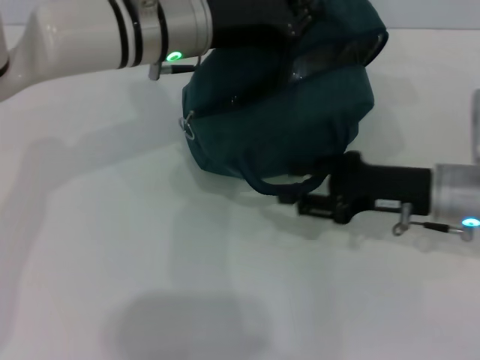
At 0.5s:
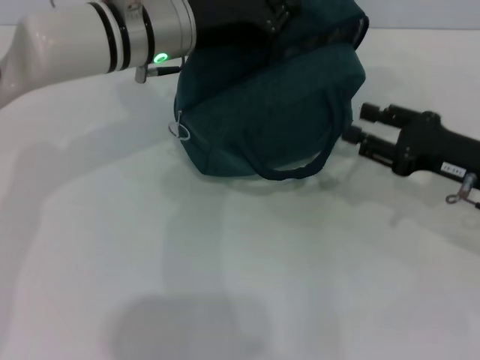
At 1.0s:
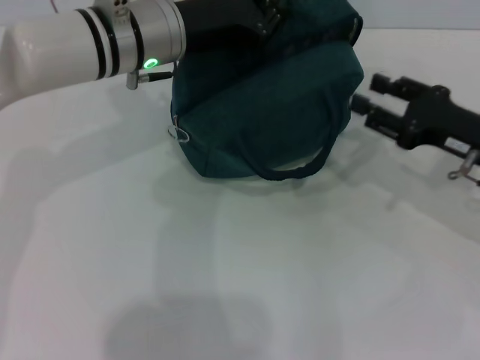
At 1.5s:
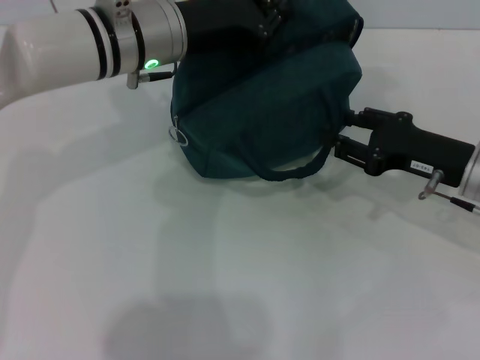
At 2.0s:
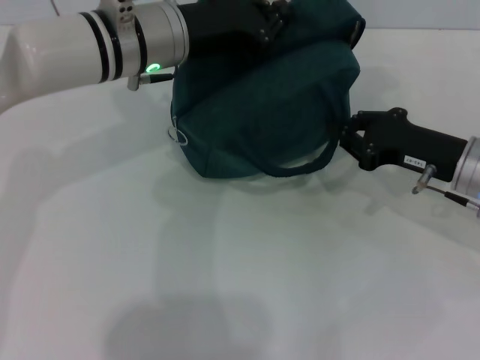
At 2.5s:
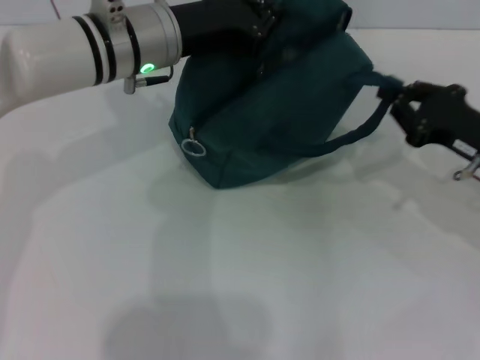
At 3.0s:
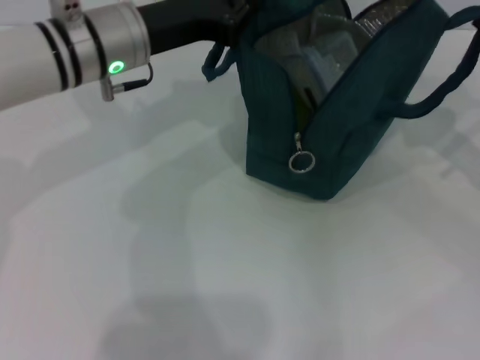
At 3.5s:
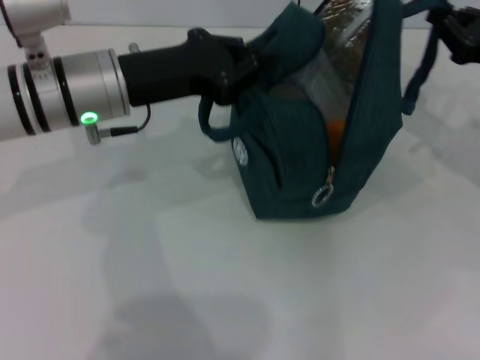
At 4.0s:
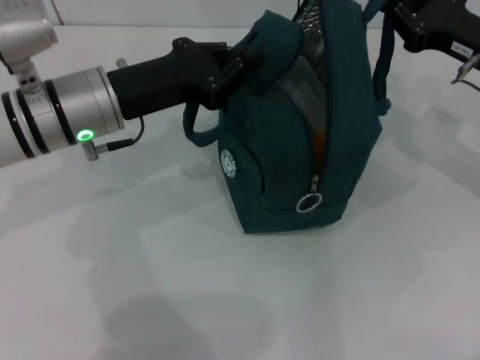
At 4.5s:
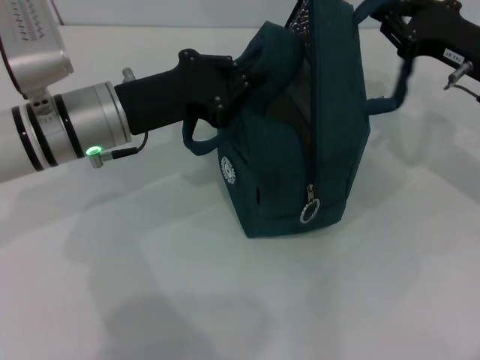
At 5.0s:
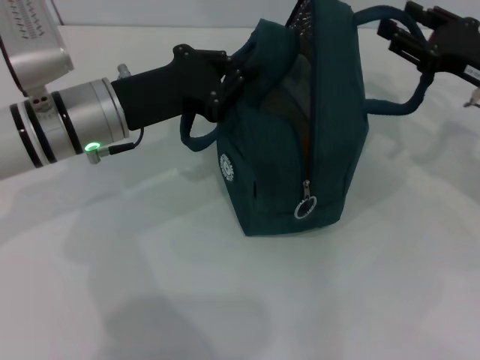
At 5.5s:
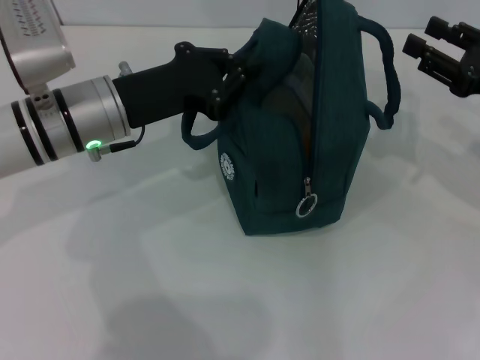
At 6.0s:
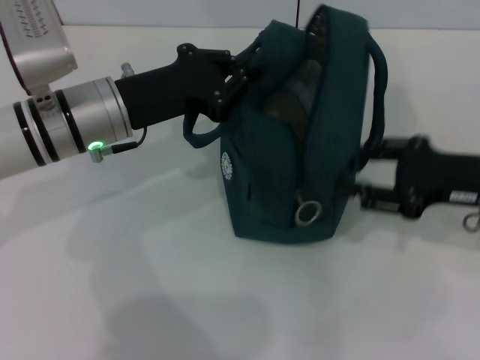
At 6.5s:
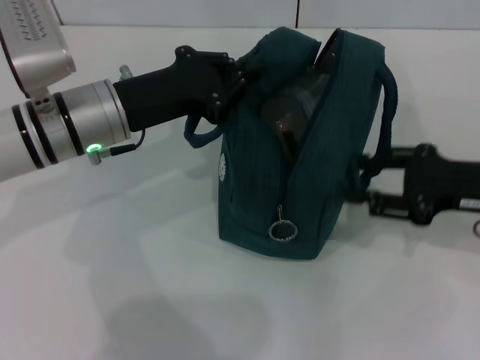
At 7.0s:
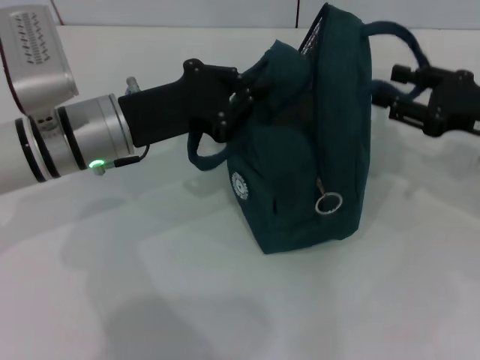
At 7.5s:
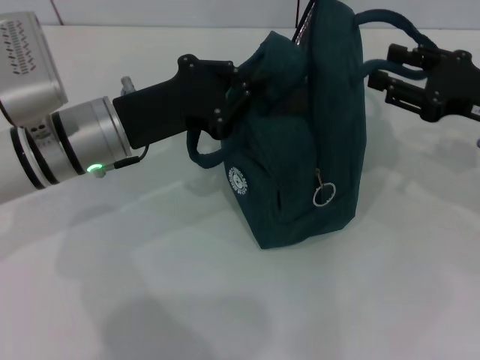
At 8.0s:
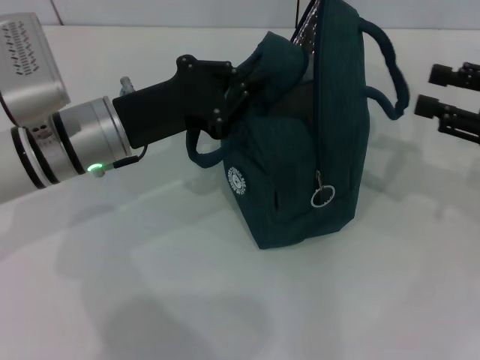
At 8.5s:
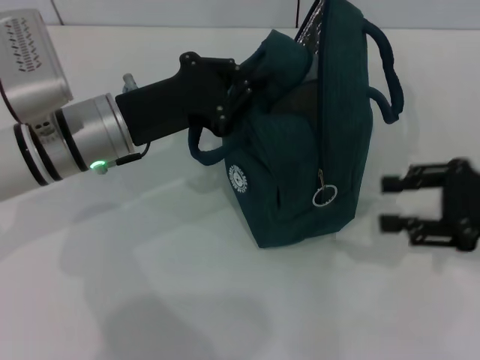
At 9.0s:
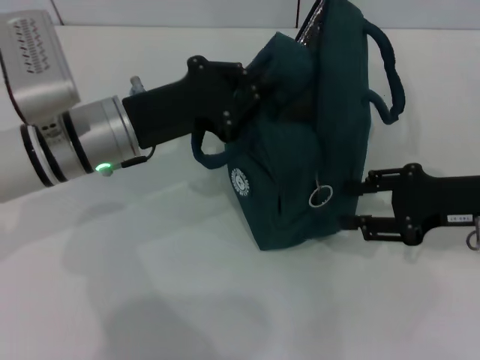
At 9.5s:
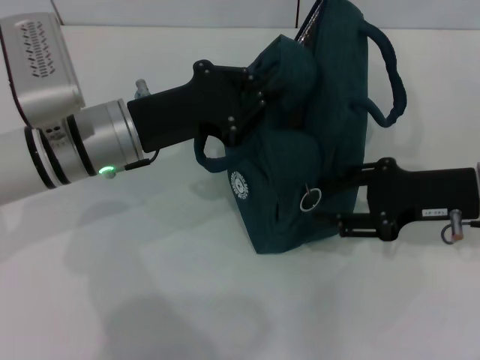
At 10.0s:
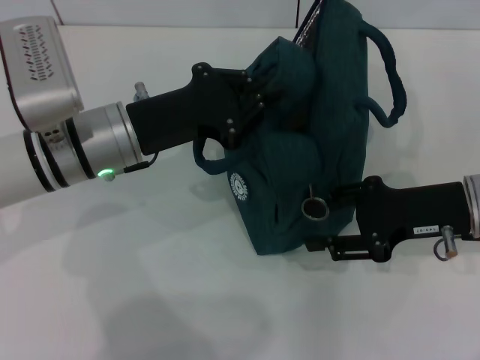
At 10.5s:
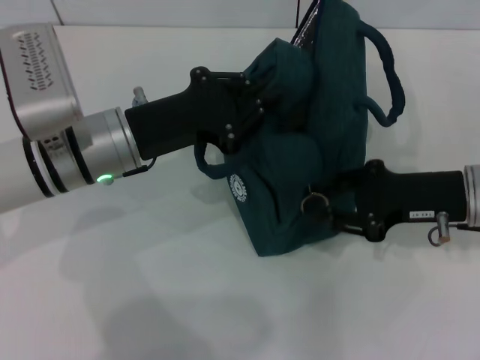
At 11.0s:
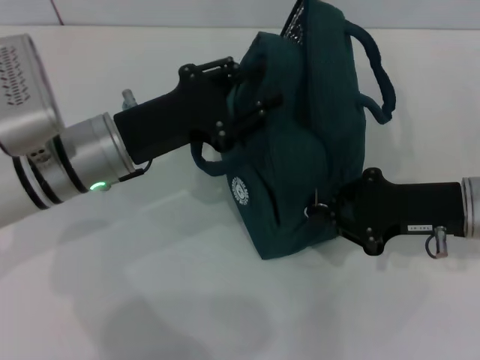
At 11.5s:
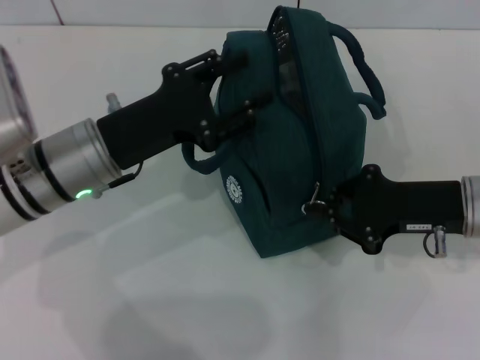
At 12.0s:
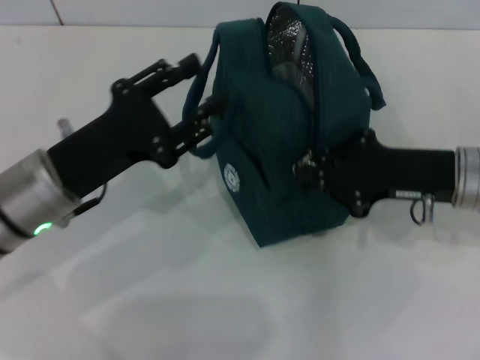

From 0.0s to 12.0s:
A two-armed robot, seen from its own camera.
Step, from 0.0s to 5.0s: Hold the lunch bag with your right hand.
Step, from 5.5s to 11.5s: Hold the lunch bag with your left hand.
From 2.0s to 4.0s: The right gripper goes roughly 10 cm upward and forward, and goes to the right and returns, about 10 cm each way, while the left gripper heads to the left and backward, covering approximately 10 cm.
From 4.0s to 6.0s: The right gripper travels backward by about 10 cm, and opens.
From 6.0s to 8.0s: The right gripper is displaced to the right by some 5 cm.
From 8.0s to 10.0s: The right gripper is displaced to the left by some 10 cm.
From 10.0s to 12.0s: The left gripper heads backward, covering roughly 5 cm, and opens up, while the right gripper closes.

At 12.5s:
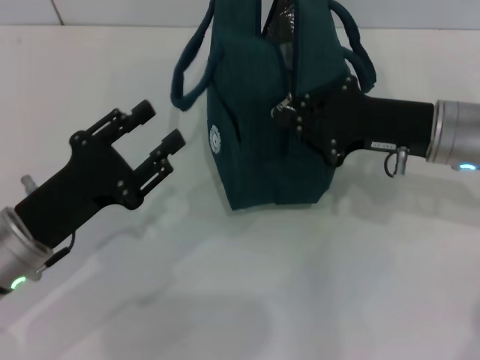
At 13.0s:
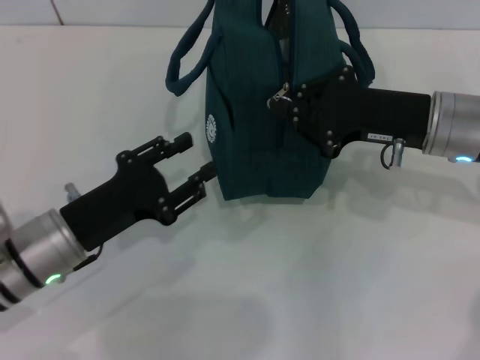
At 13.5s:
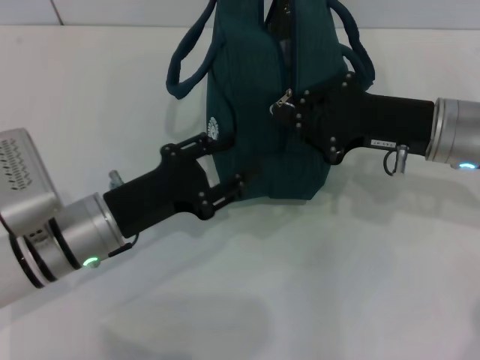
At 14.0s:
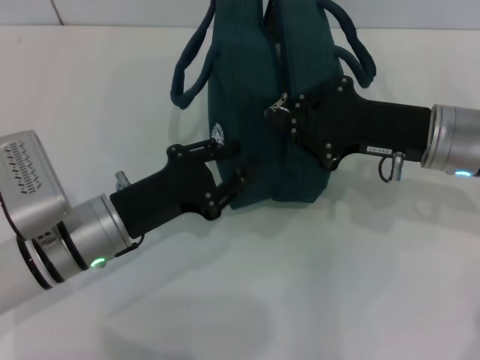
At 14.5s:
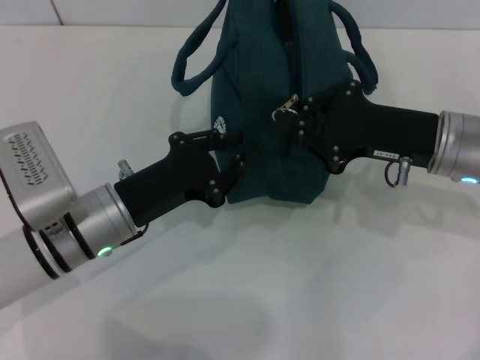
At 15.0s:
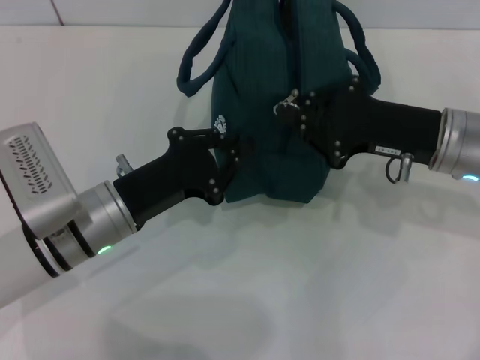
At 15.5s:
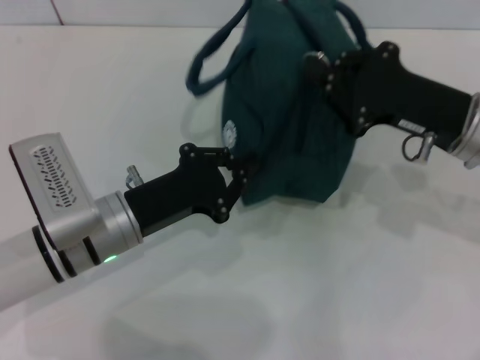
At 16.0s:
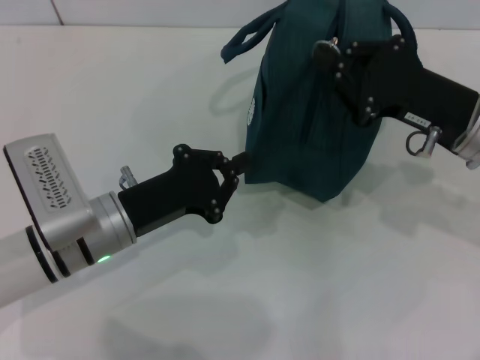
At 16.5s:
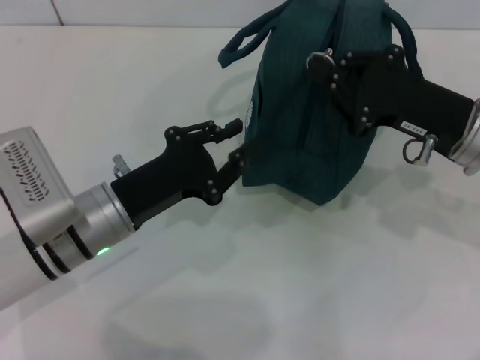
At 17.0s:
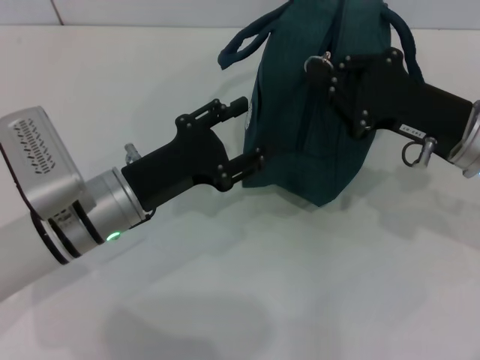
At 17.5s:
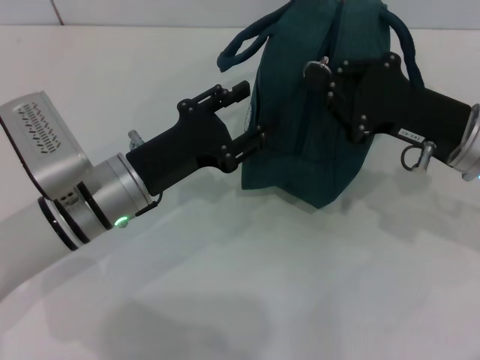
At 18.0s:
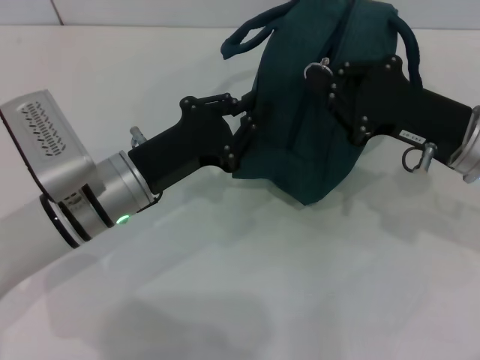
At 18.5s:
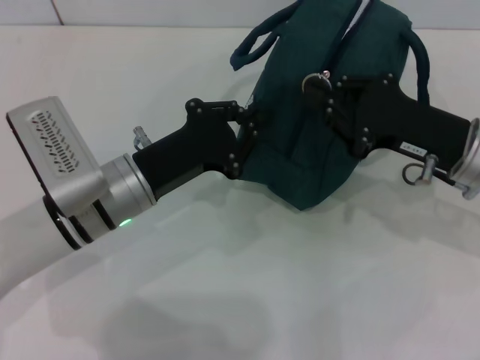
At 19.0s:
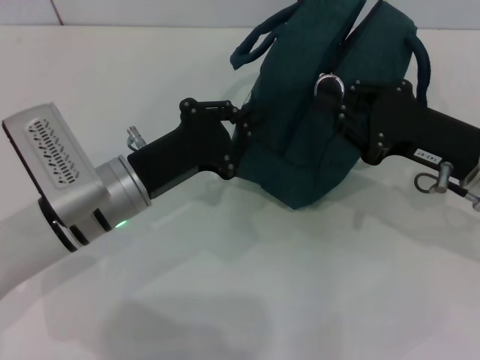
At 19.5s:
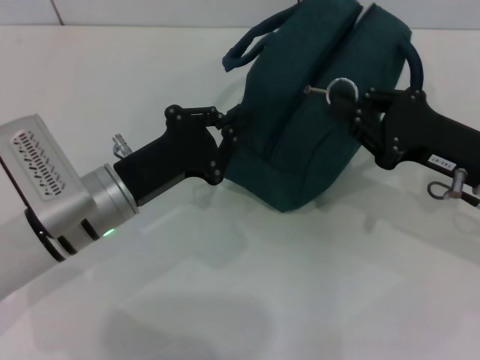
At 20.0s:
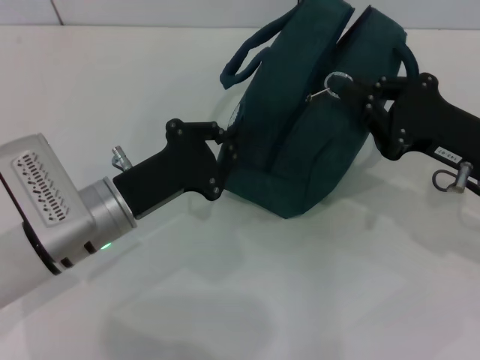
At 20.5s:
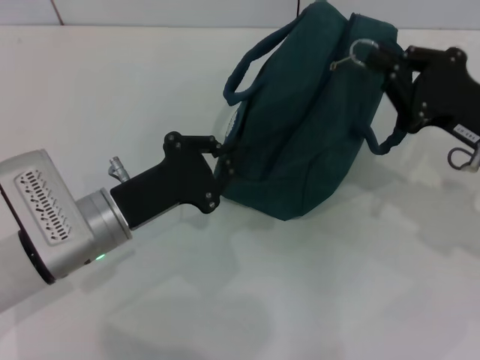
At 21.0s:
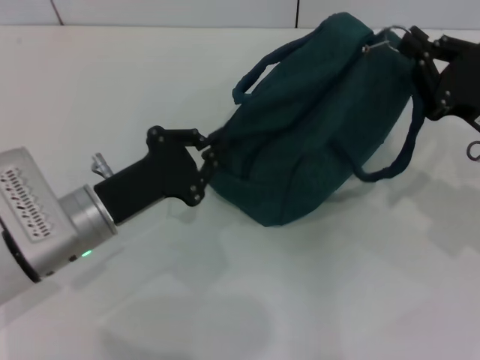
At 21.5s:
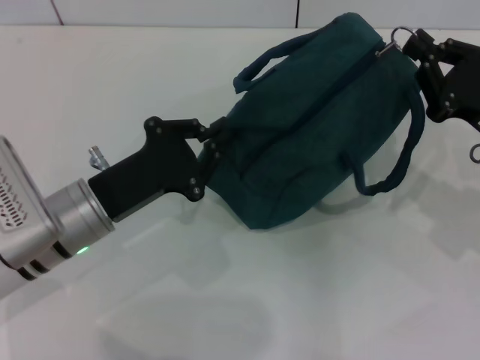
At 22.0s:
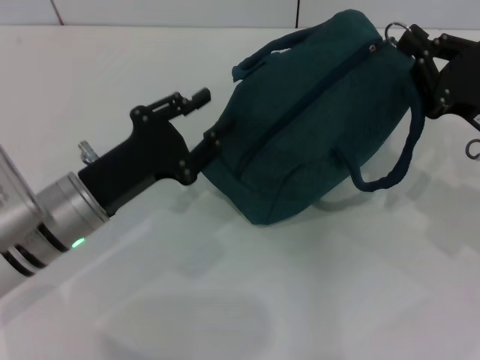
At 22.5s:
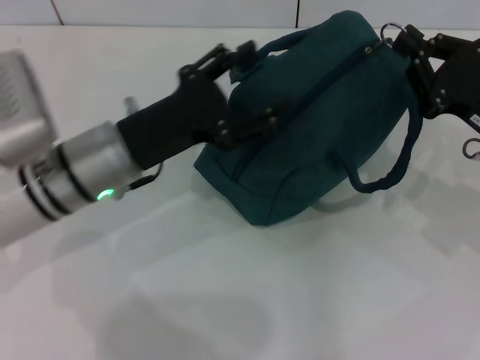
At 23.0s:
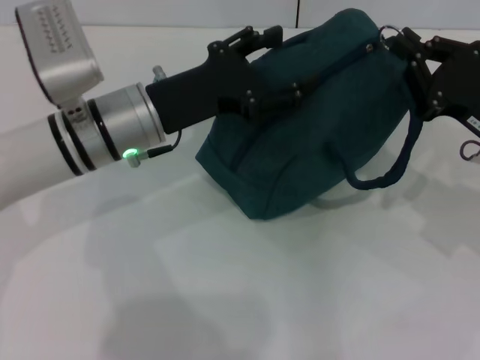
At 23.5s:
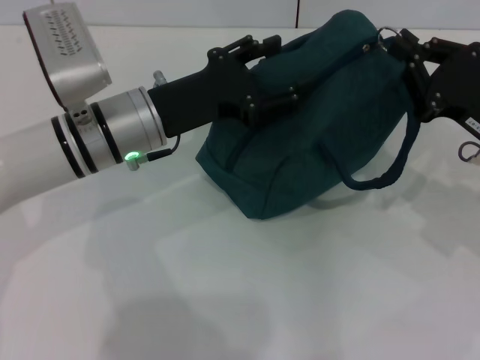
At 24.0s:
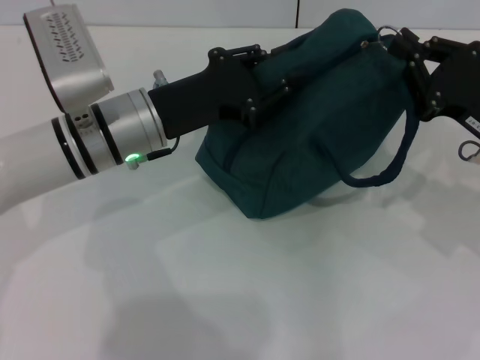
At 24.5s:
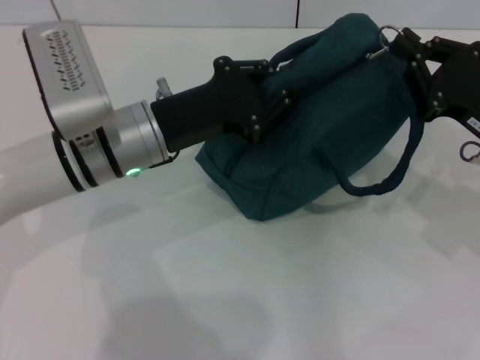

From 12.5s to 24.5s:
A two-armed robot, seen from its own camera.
From 12.5s to 14.5s: The left gripper travels to the right by some 5 cm, and closes.
From 14.5s to 16.5s: The grippers stay close to where they were, moving slightly.
From 16.5s to 18.5s: The left gripper opens and closes again.
From 20.5s to 22.5s: The left gripper is displaced upward by roughly 5 cm, and opens.
From 22.5s to 24.5s: The left gripper closes.

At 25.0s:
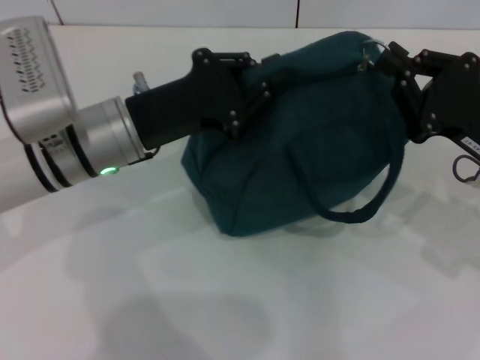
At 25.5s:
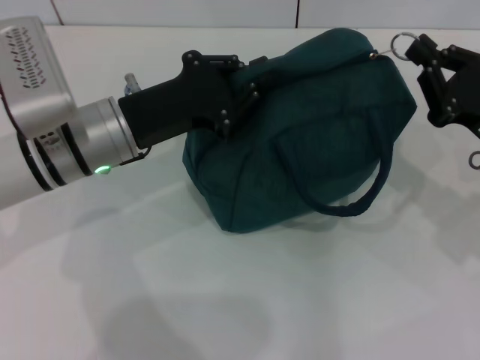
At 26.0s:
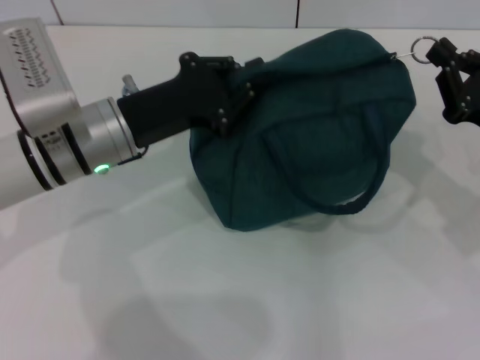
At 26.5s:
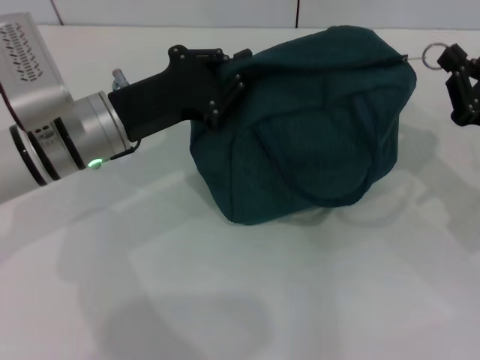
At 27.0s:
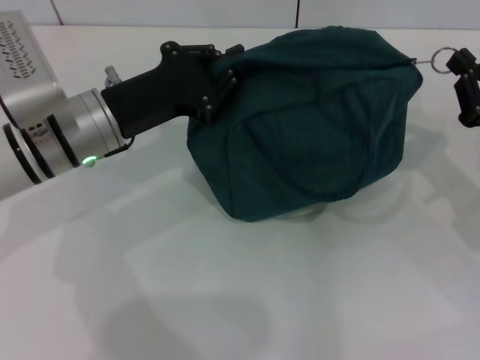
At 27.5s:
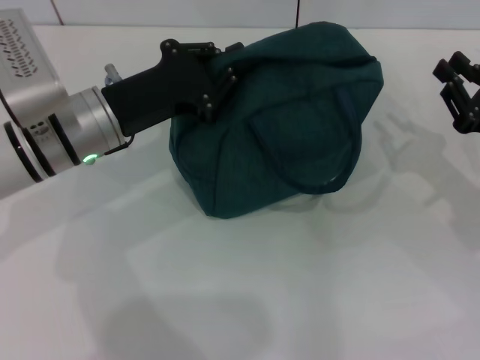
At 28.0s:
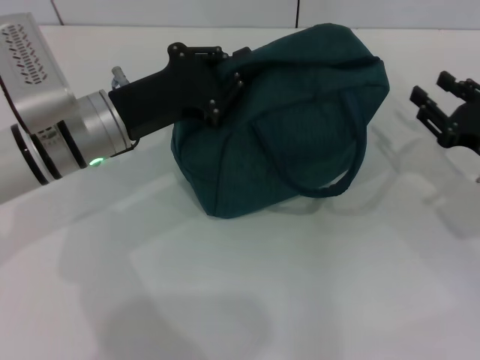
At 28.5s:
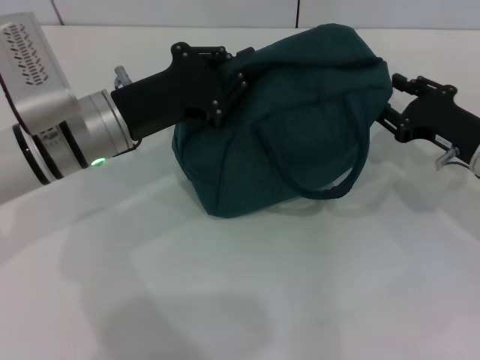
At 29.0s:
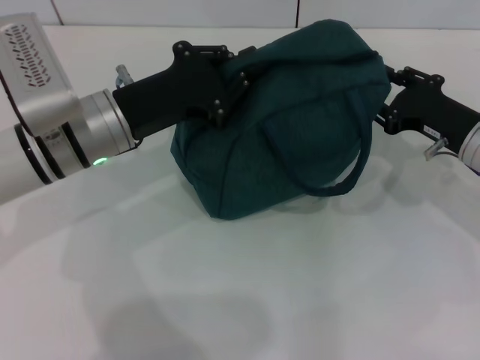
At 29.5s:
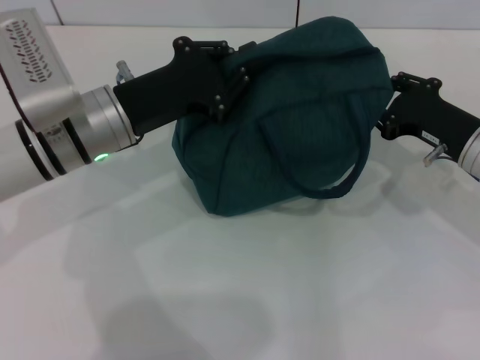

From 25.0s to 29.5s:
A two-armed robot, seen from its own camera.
From 25.0s to 27.0s: The right gripper changes place by about 5 cm.
From 27.0s to 29.5s: The right gripper goes some 5 cm to the left, and opens.
